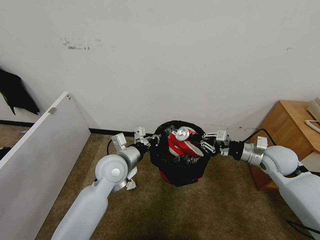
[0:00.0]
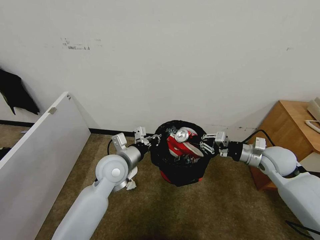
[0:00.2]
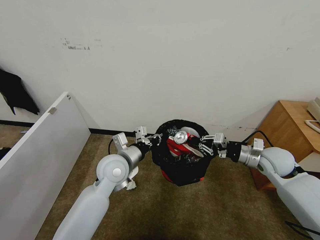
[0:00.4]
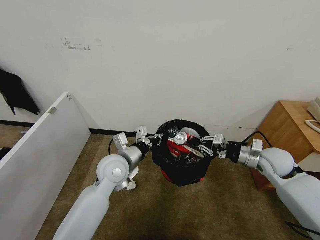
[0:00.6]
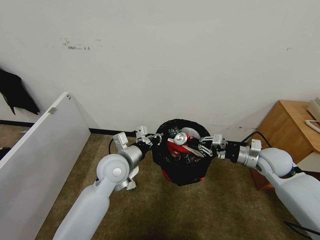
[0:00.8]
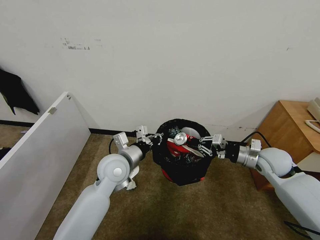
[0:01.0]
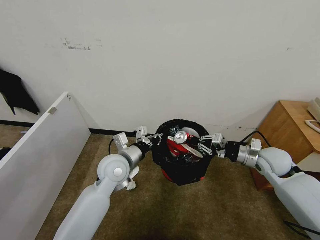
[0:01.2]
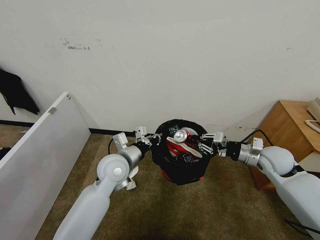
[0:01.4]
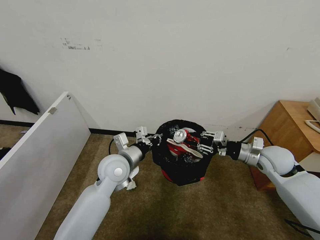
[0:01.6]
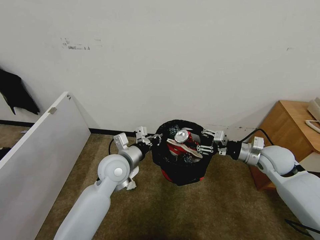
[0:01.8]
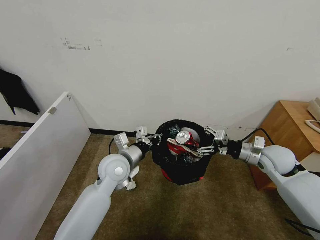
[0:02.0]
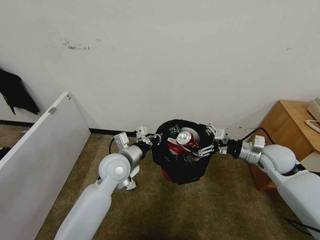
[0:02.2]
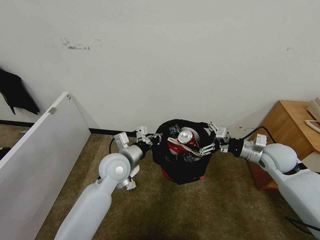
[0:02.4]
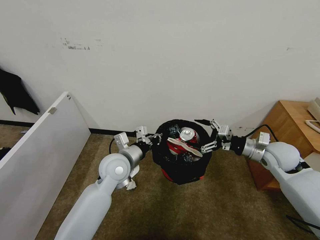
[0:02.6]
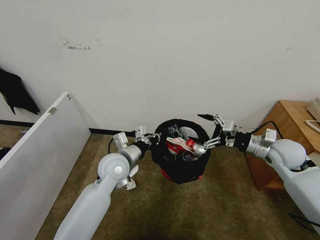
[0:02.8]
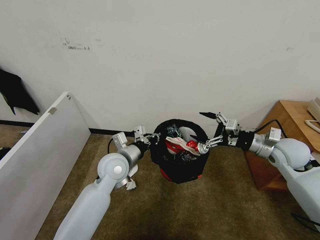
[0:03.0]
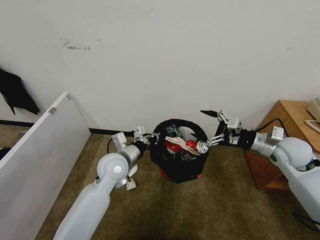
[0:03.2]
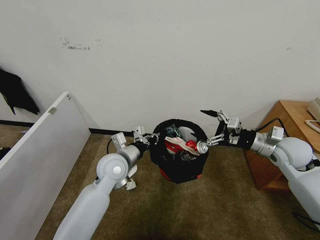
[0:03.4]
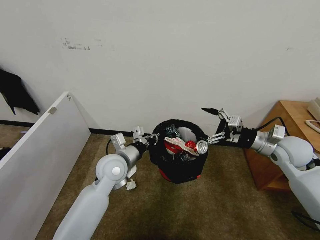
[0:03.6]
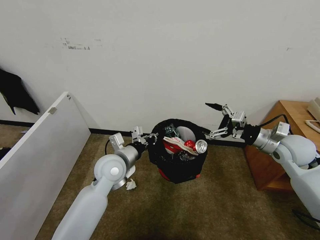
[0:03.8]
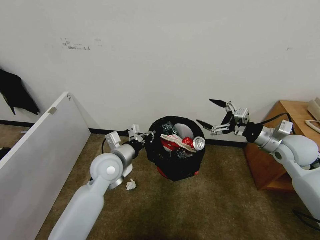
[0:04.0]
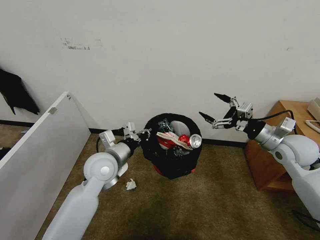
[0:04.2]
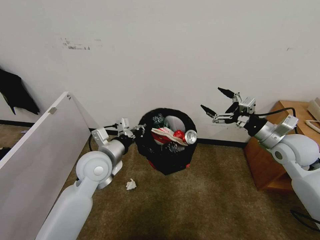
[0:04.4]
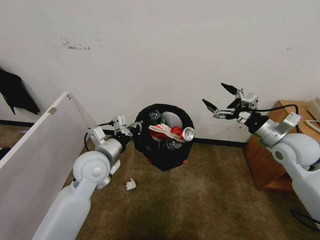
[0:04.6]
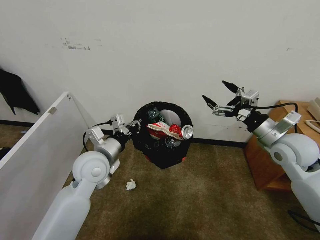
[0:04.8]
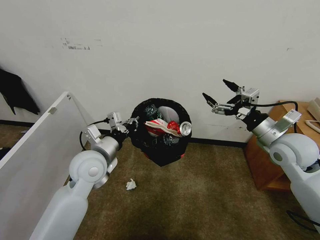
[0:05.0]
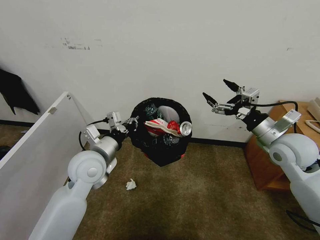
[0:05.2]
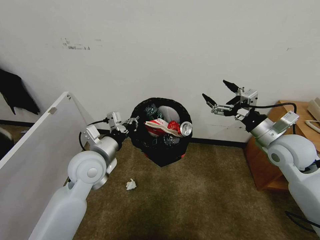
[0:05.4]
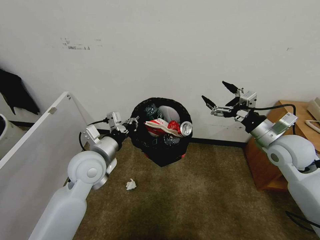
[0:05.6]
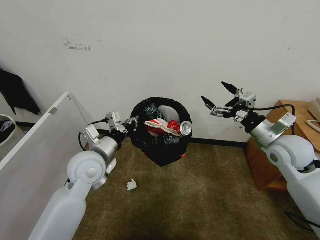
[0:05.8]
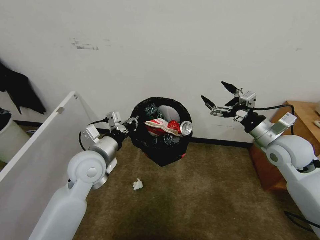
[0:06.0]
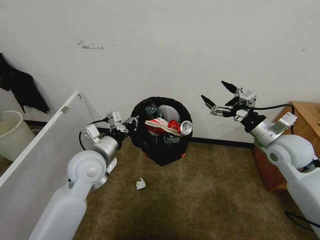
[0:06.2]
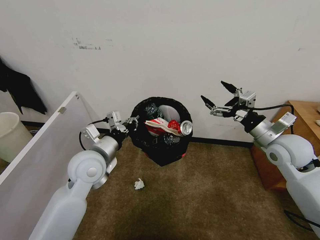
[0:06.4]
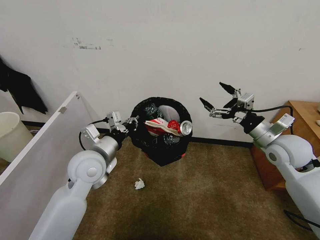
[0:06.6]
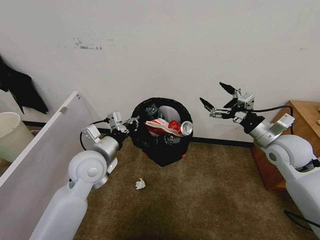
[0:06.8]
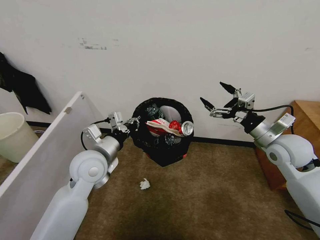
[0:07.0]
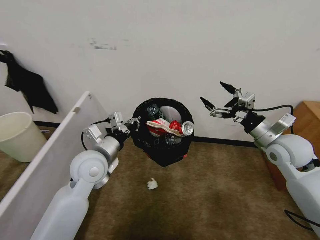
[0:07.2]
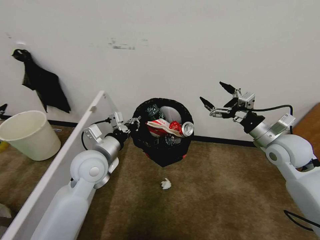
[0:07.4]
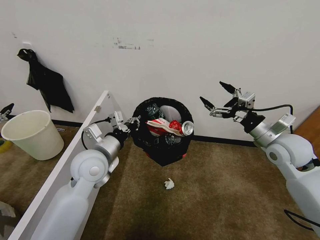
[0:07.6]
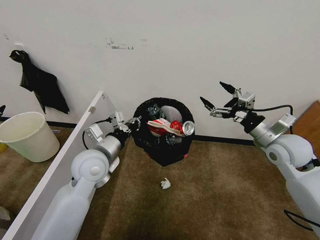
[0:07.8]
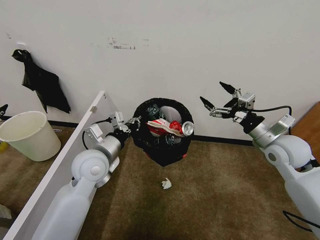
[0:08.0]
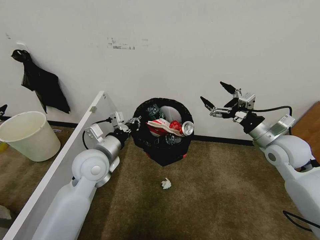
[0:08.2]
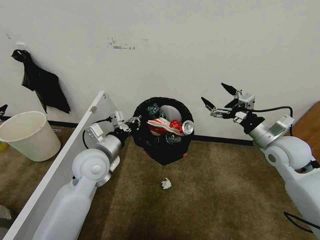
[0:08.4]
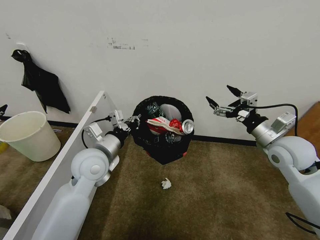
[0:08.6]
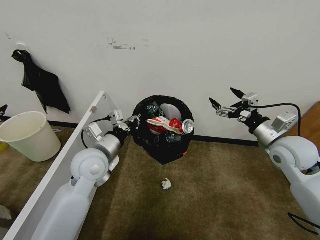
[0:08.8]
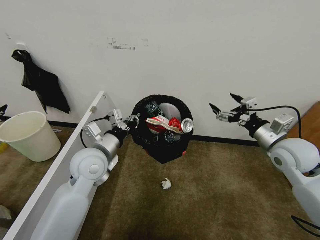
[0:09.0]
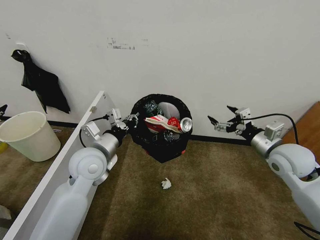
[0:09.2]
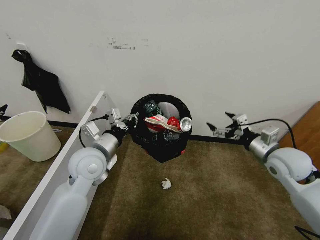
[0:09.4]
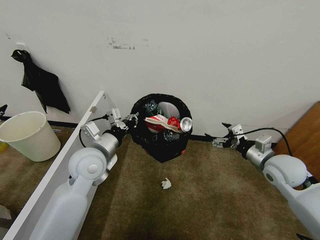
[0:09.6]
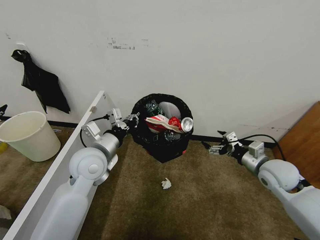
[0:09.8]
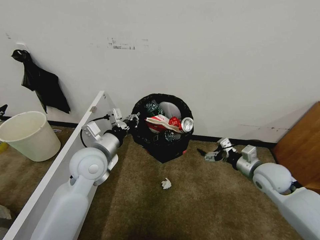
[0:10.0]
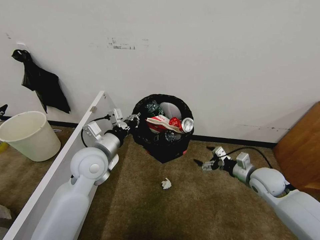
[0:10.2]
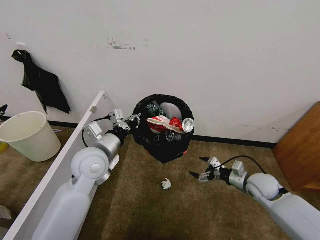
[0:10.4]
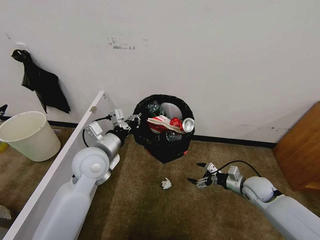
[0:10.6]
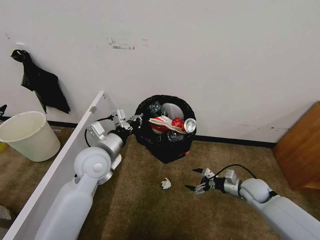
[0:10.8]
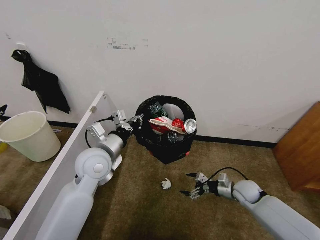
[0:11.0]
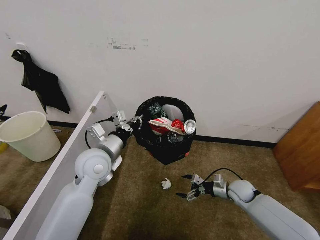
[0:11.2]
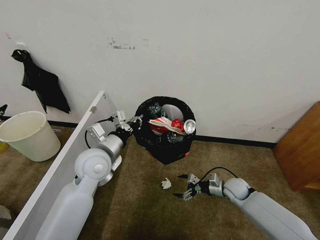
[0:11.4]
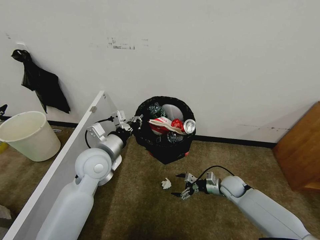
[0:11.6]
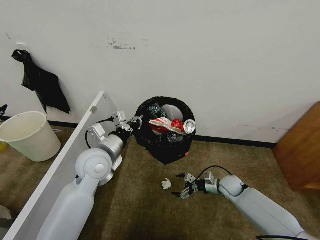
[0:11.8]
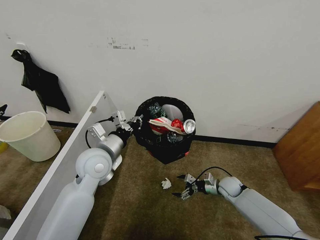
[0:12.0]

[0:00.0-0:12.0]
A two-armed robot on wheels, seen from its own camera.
Task of the whole recording: Pick up the trash bin, then pick up the garbage from the floor and place it into the trash bin.
0:00.0 to 0:01.6: The grippers stay close to where they were, moving slightly.
0:01.6 to 0:03.0: The right gripper opens up.
0:03.0 to 0:04.4: The left gripper shifts by approximately 5 cm.
0:04.4 to 0:06.0: The grippers stay close to where they were, moving slightly.
0:07.6 to 0:09.0: The grippers move only a little.
0:09.0 to 0:10.4: The right gripper heads downward, covering roughly 20 cm.
0:10.4 to 0:12.0: The right gripper is displaced downward and to the left by approximately 15 cm.

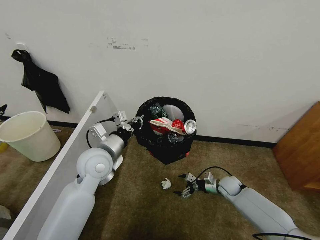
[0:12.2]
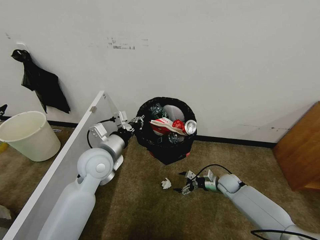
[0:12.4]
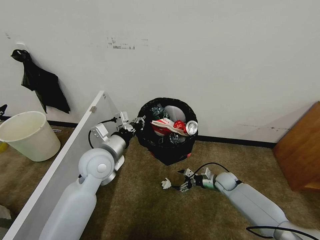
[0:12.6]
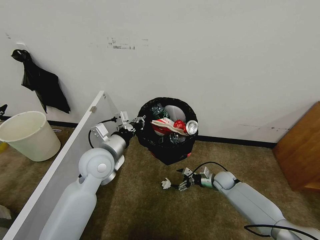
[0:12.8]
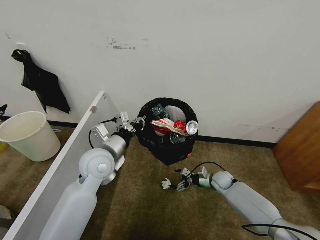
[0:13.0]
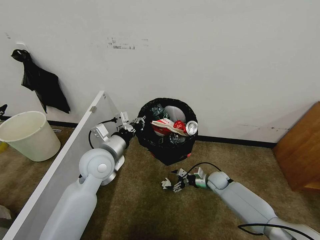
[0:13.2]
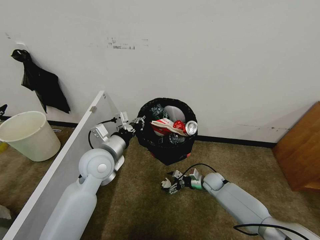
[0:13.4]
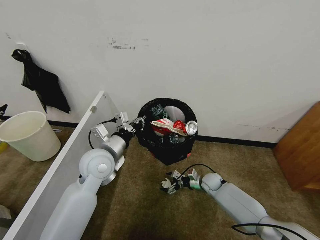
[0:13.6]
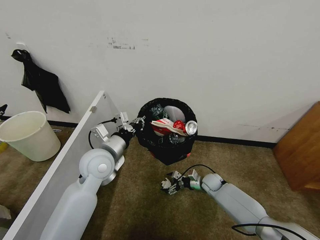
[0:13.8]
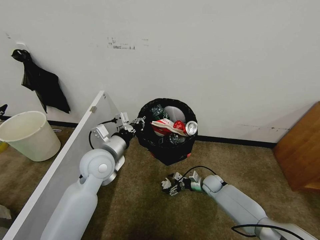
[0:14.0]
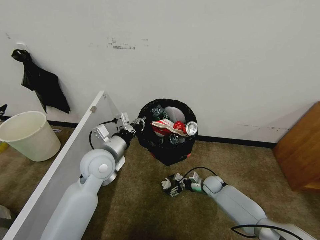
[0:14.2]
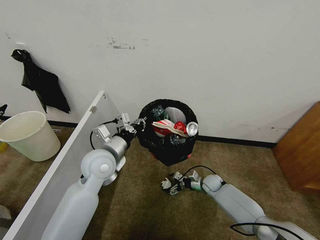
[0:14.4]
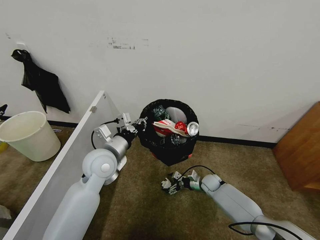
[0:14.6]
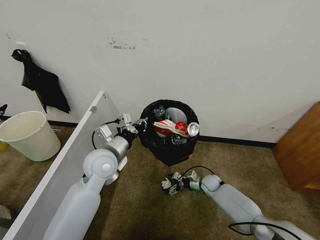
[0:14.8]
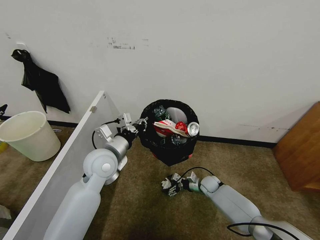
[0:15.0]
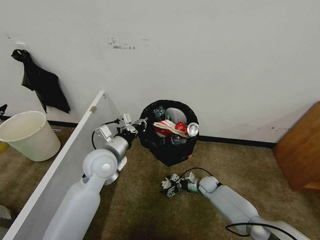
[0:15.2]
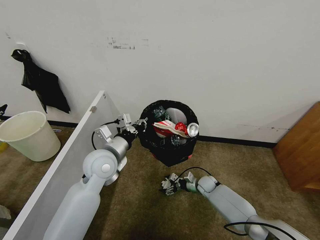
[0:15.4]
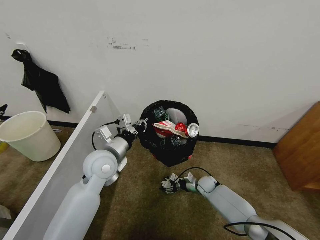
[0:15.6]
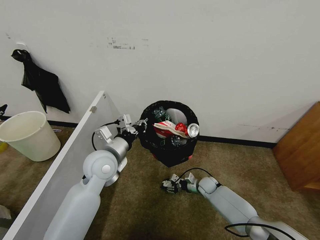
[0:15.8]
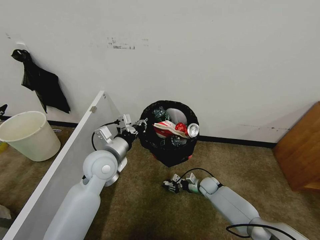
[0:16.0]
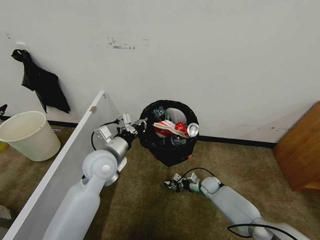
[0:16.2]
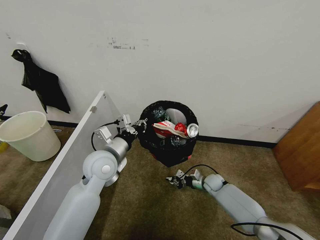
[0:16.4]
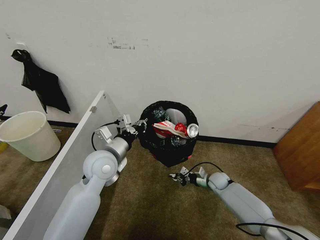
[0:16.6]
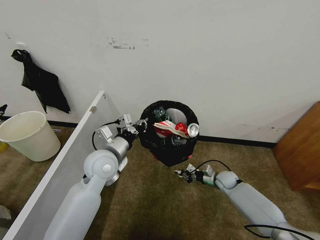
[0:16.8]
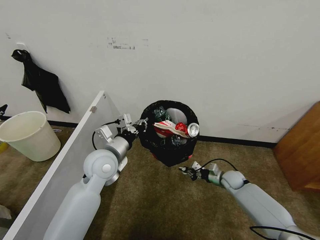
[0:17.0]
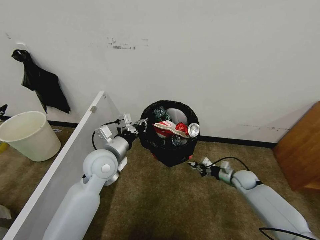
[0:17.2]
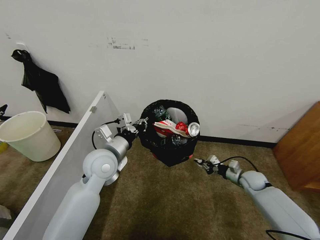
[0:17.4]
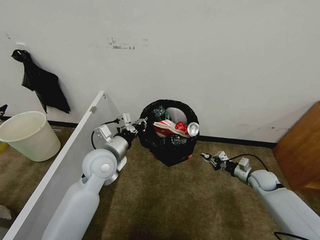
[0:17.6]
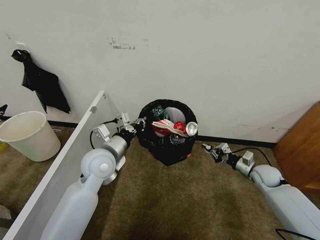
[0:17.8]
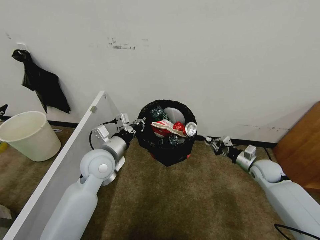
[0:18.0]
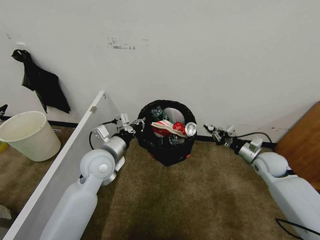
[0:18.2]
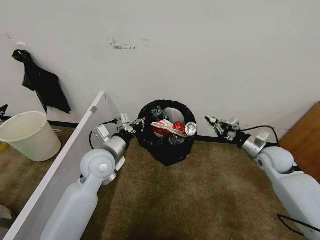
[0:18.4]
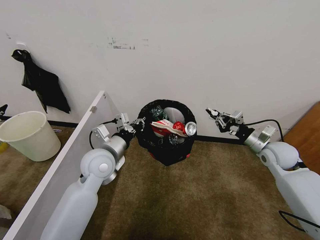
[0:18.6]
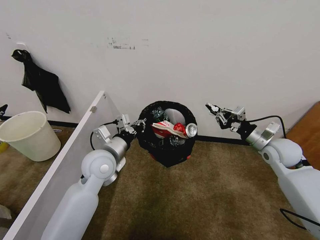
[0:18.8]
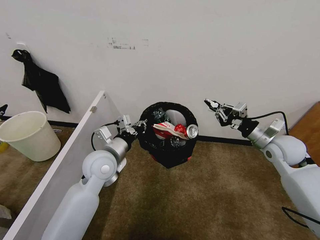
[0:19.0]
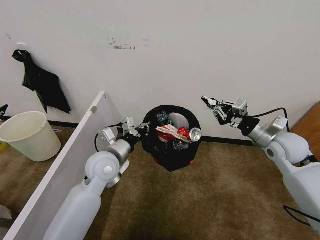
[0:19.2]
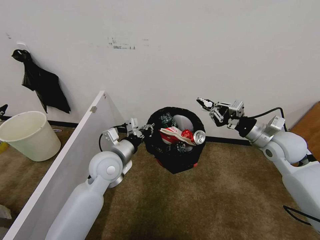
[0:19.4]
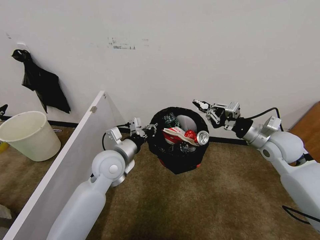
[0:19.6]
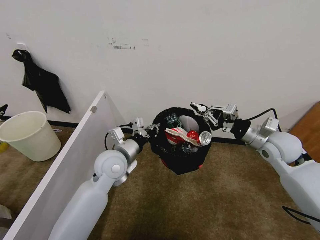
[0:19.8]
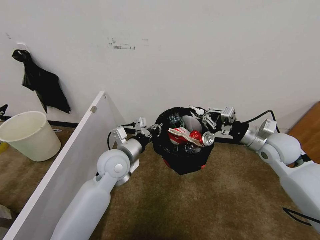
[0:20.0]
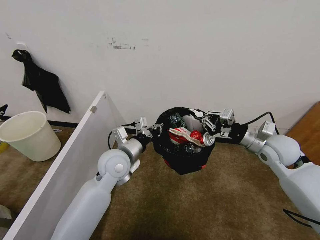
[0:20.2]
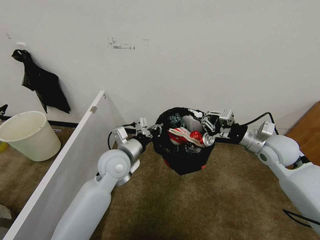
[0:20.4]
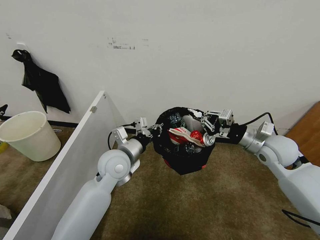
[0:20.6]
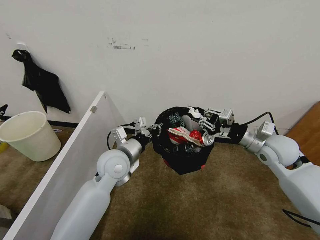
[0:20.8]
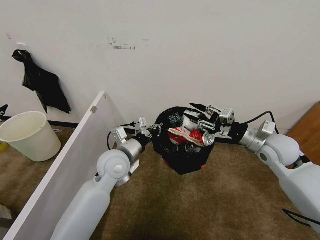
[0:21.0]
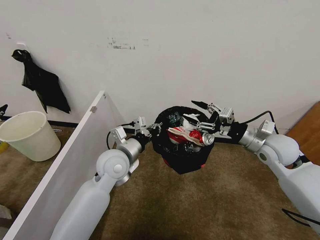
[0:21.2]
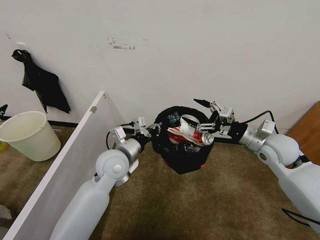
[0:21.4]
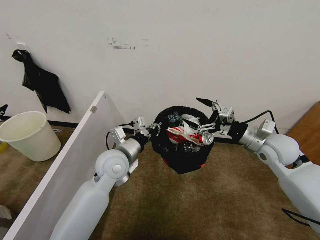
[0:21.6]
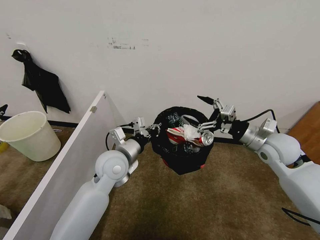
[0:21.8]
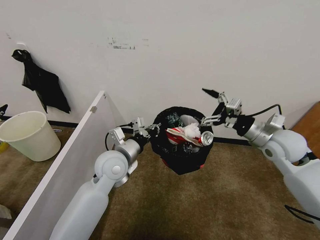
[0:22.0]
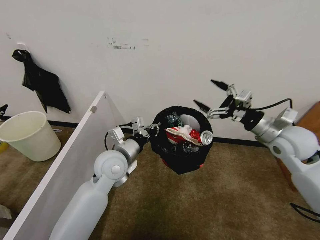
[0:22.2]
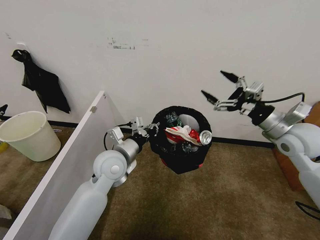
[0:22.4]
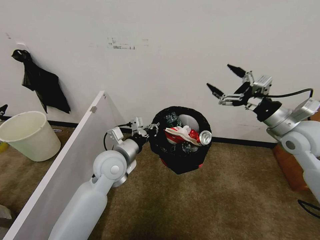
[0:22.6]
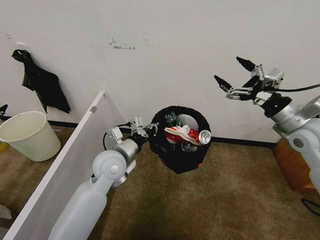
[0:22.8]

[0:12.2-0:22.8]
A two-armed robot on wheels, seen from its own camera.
Task of the whole recording: Pick up the trash bin, then pick up the garbage from the floor and place it into the trash bin.
0:12.2 to 0:13.8: The right gripper shifts roughly 5 cm to the left.
0:13.8 to 0:15.2: There are only small adjustments of the grippers.
0:15.2 to 0:16.8: The right gripper heads to the right and upward, covering approximately 10 cm, and closes up.
0:16.8 to 0:18.2: The right gripper shifts approximately 20 cm upward and to the right.
0:18.2 to 0:19.8: The right gripper goes approximately 15 cm upward.
0:19.8 to 0:21.2: The right gripper opens up.
0:21.2 to 0:22.8: The right gripper moves upward, approximately 10 cm.
